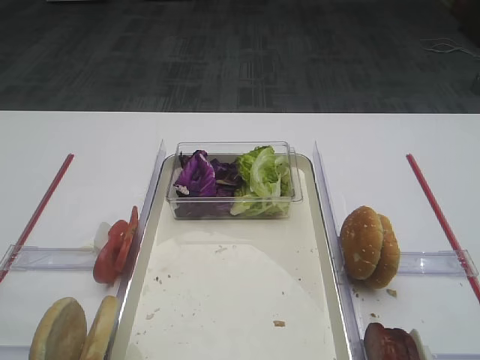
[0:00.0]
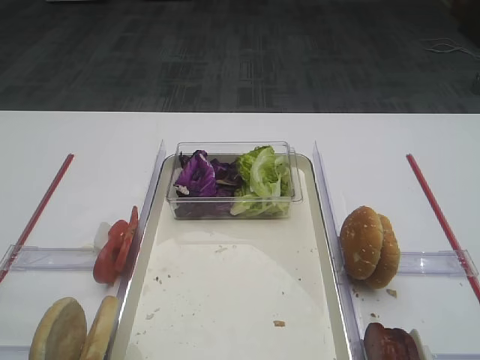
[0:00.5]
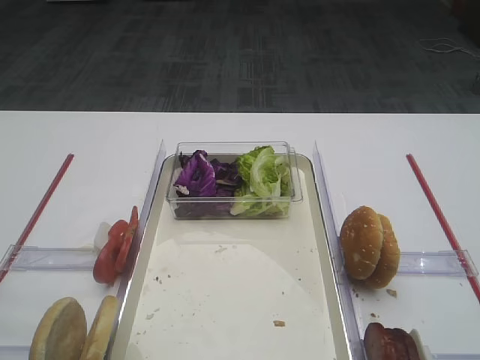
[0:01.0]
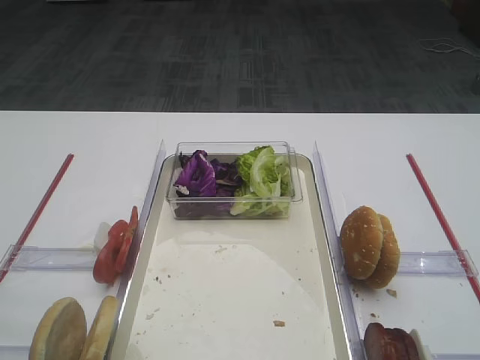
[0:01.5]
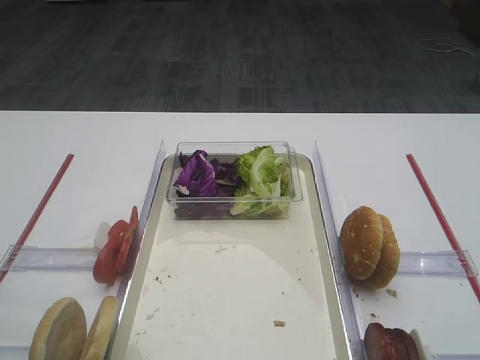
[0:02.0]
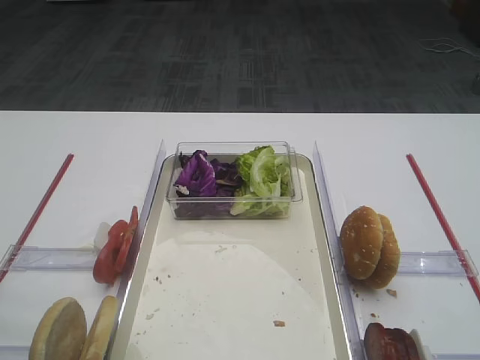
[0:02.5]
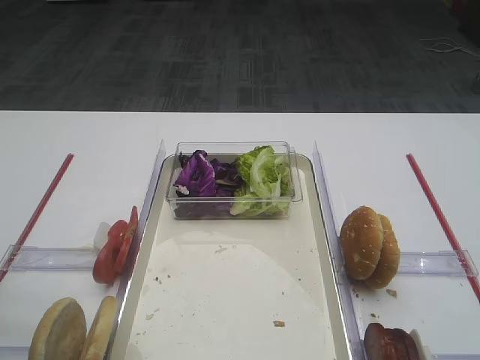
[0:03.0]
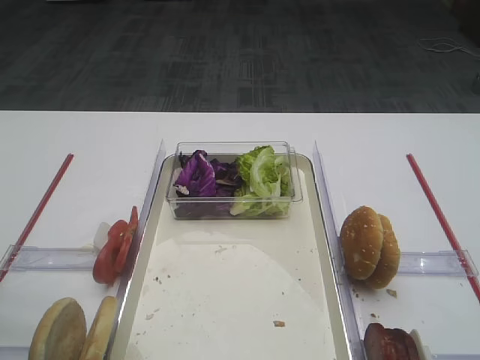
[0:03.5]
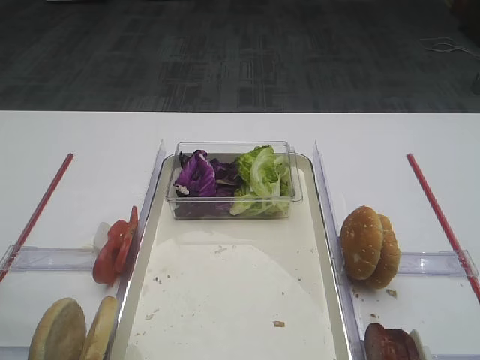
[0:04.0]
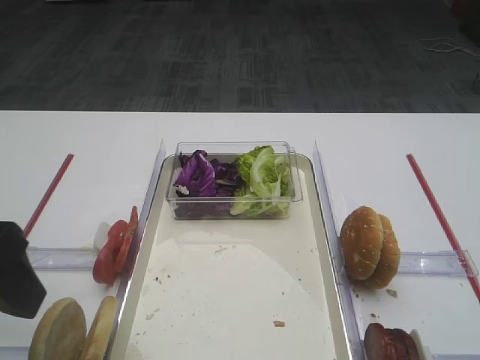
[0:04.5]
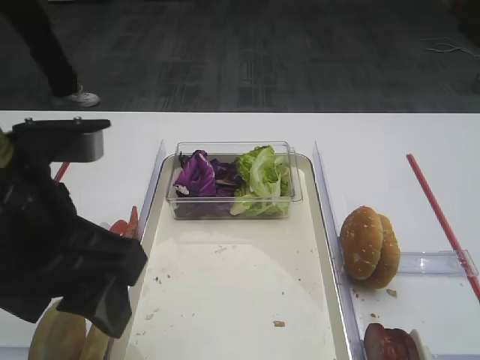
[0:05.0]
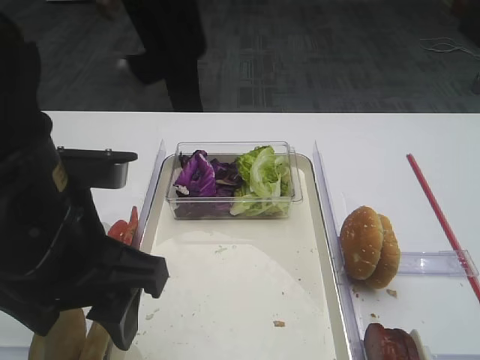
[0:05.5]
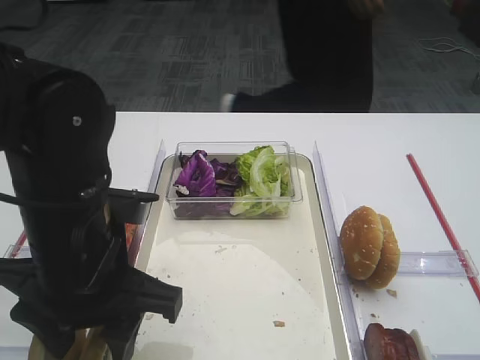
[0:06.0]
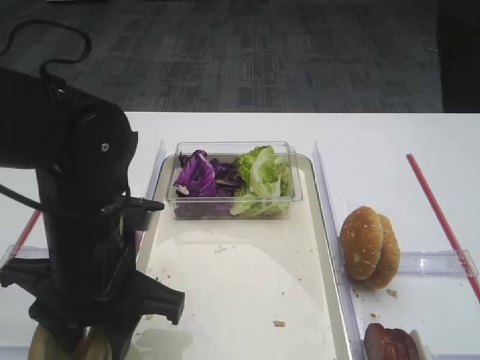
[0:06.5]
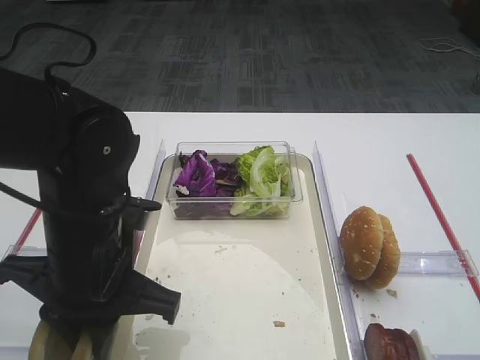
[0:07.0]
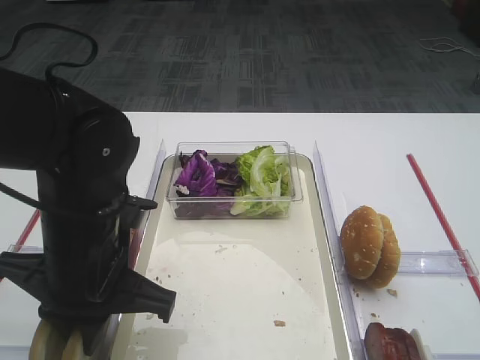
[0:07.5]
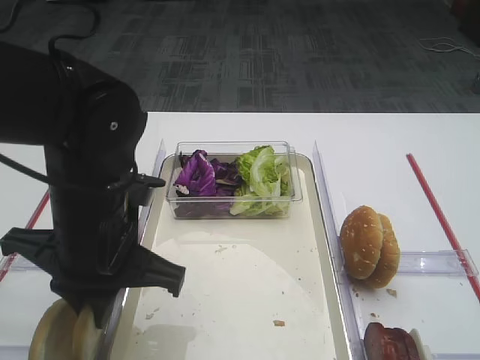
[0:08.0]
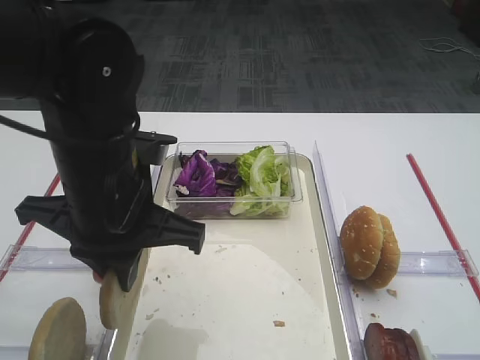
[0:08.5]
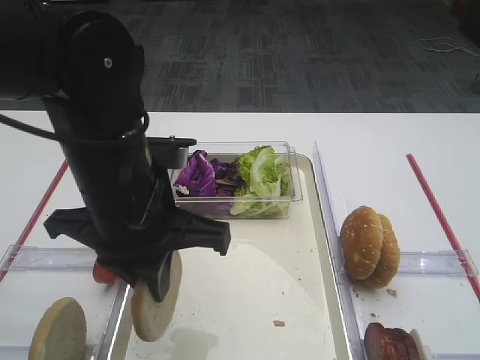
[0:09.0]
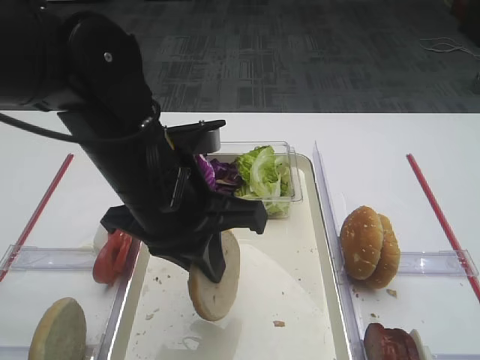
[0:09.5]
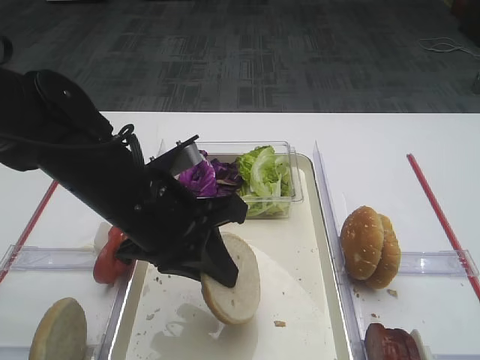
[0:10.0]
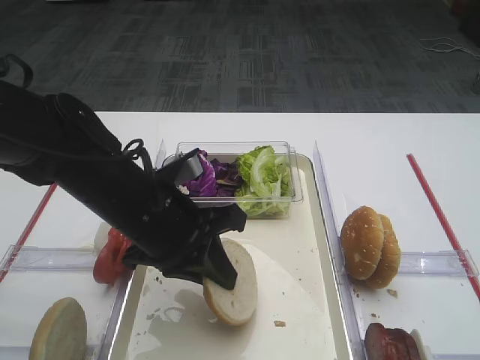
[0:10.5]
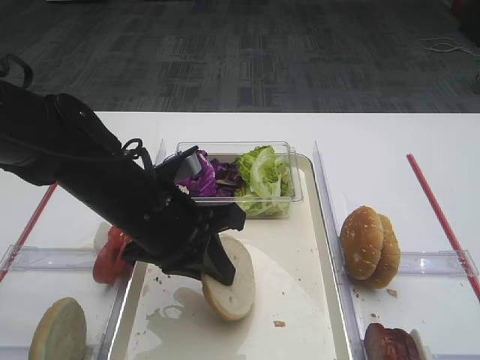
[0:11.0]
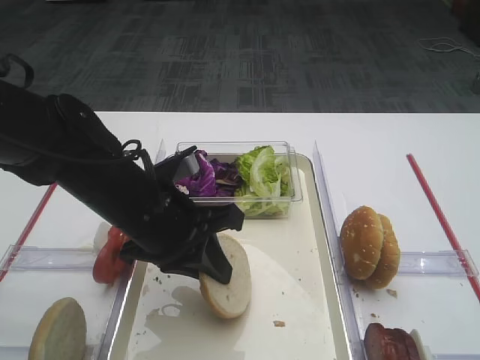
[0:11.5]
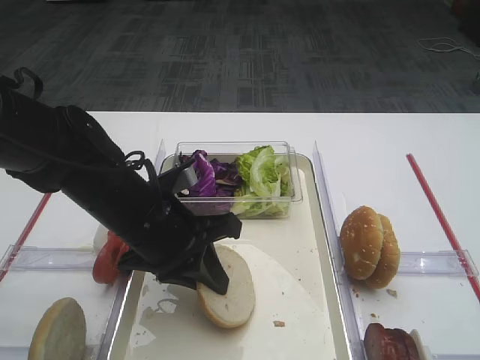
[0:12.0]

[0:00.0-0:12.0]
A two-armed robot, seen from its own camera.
Step, 0:00.0 to 0:08.0: Pick up the bread slice with the left gripper.
0:04.0 to 0:06.0: The left gripper travels to the right and downward by about 15 cm.
0:06.0 to 0:08.0: The left gripper closes its fingers.
0:10.0 to 0:12.0: There are only small adjustments of the grippers.

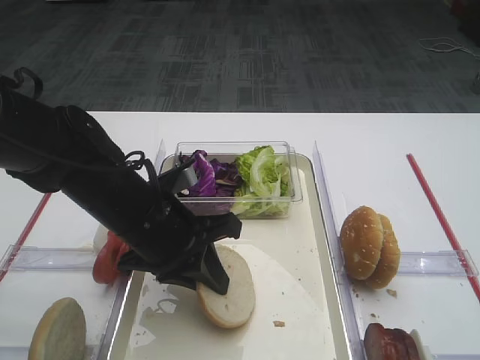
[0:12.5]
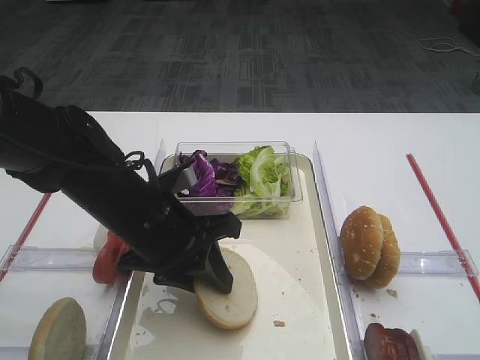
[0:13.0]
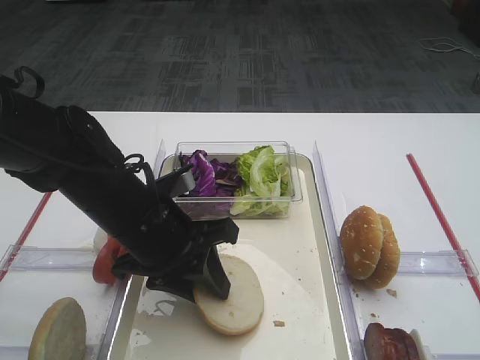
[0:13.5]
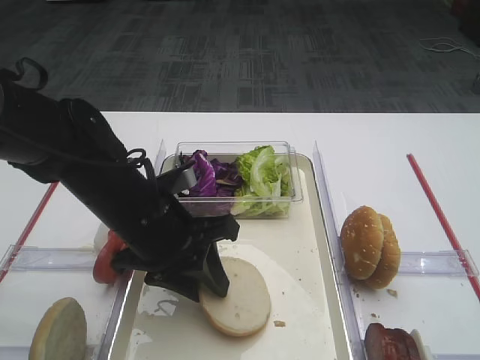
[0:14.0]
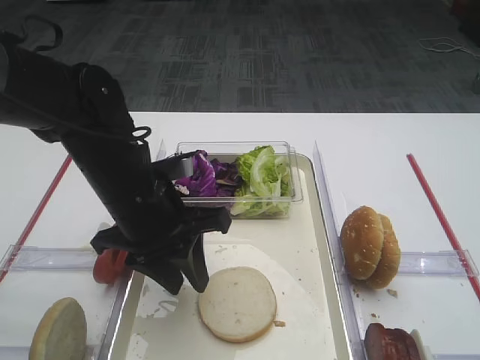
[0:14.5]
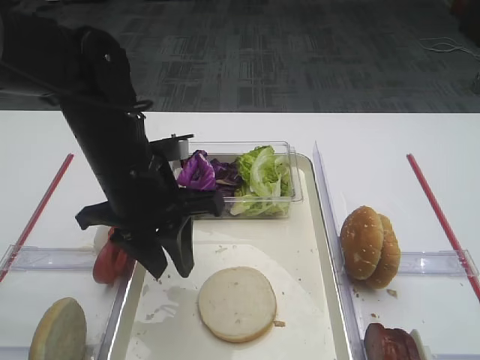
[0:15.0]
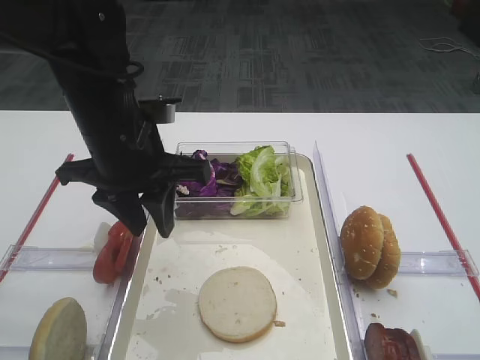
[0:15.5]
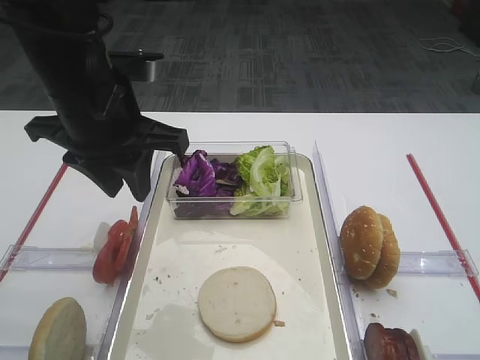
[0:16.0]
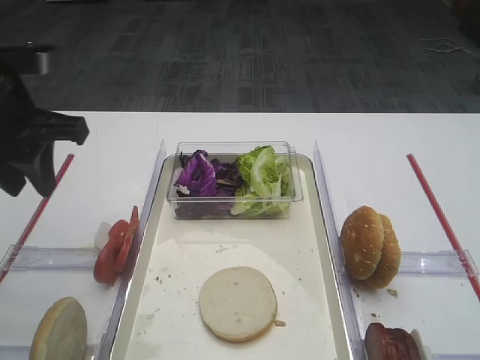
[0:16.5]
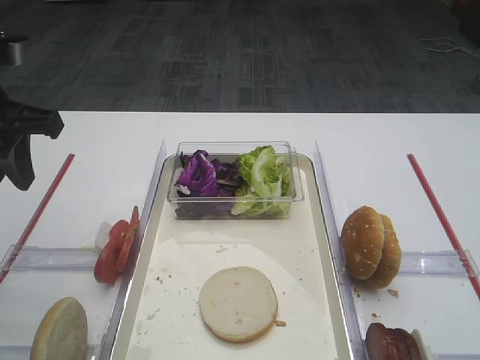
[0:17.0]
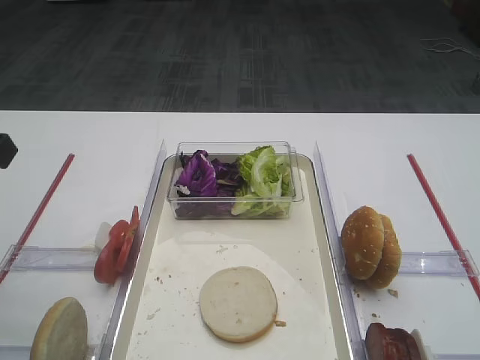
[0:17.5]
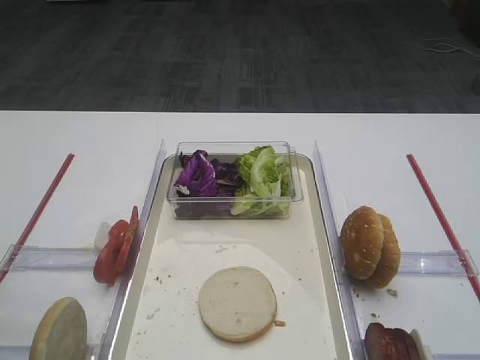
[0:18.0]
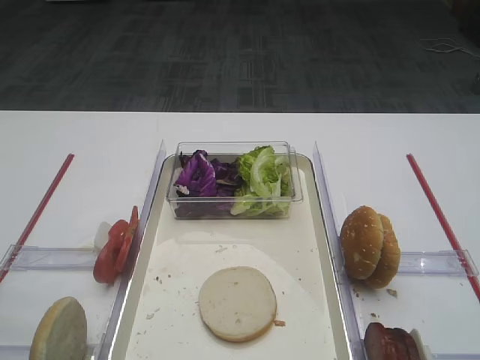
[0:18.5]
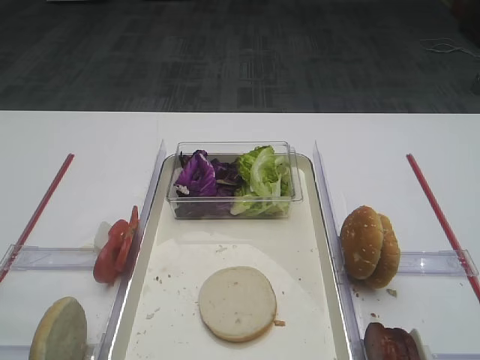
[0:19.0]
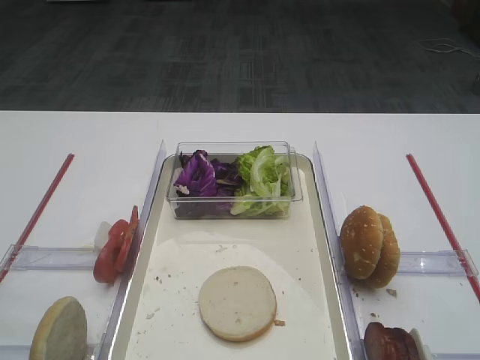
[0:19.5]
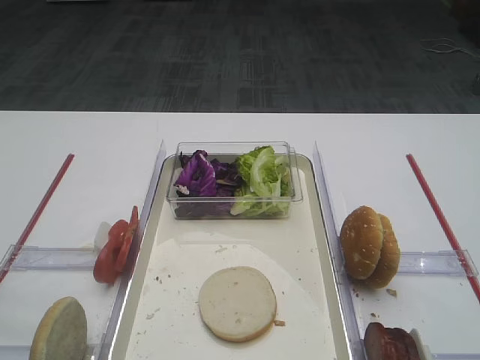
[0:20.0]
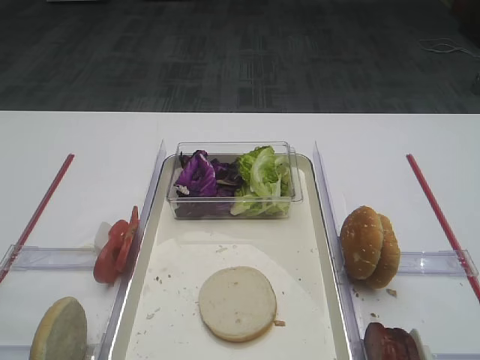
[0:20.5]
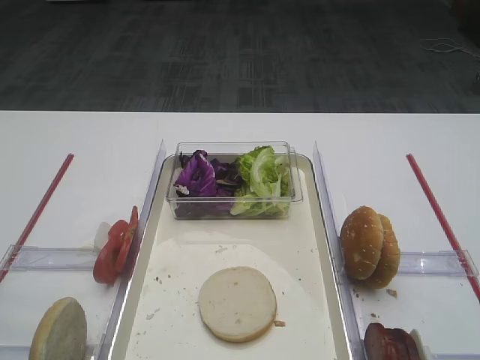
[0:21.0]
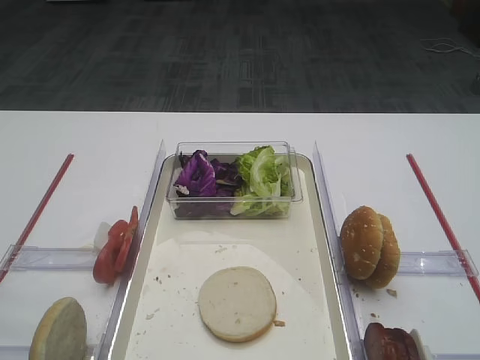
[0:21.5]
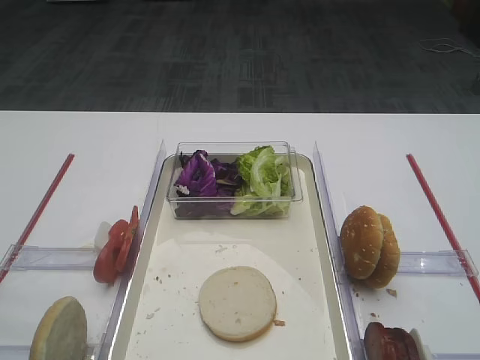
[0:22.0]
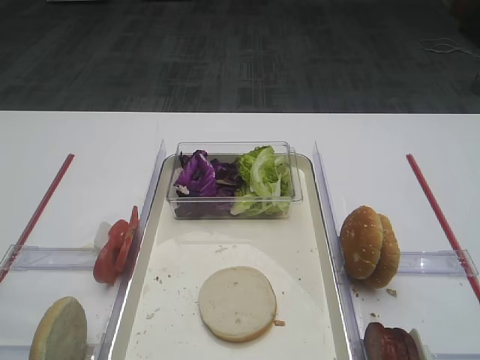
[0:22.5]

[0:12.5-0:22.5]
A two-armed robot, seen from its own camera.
Step, 0:12.5 to 0:15.0: Place the bread slice on the tray with the left gripper.
0:12.5 to 0:14.5: The grippers move only a little.
0:14.5 to 0:16.5: The left gripper shifts about 15 cm to the left and upward.
0:16.5 to 0:18.5: The left gripper moves backward, roughly 20 cm.
0:20.5 to 0:22.5: Neither gripper changes place.

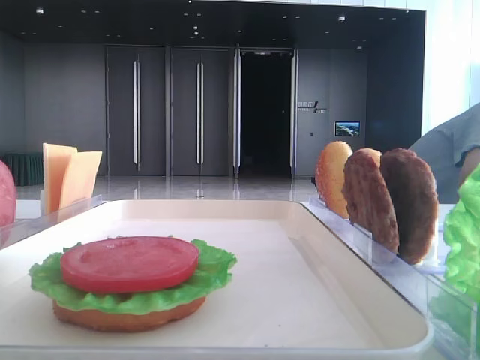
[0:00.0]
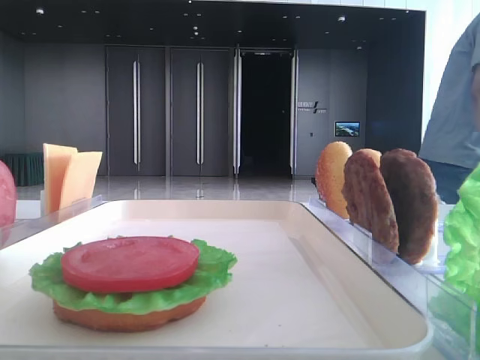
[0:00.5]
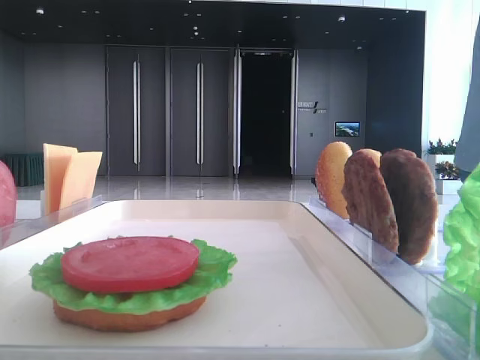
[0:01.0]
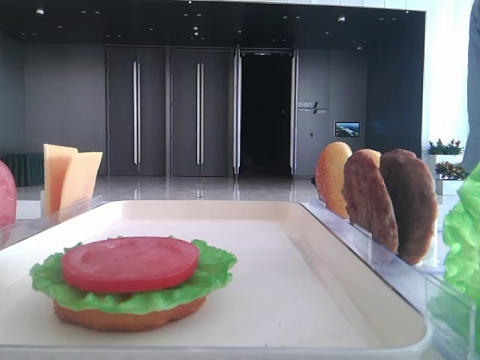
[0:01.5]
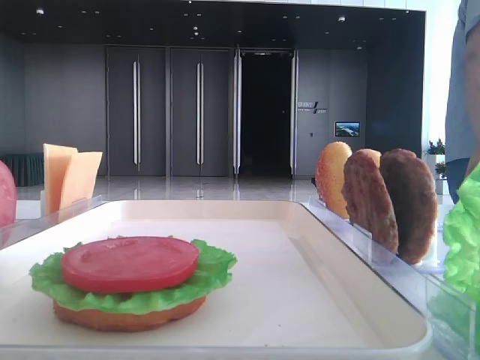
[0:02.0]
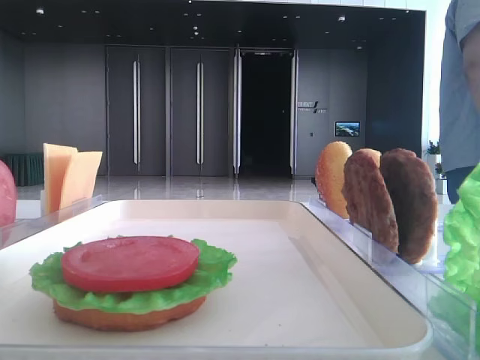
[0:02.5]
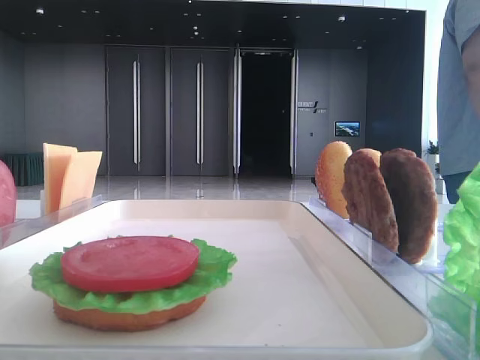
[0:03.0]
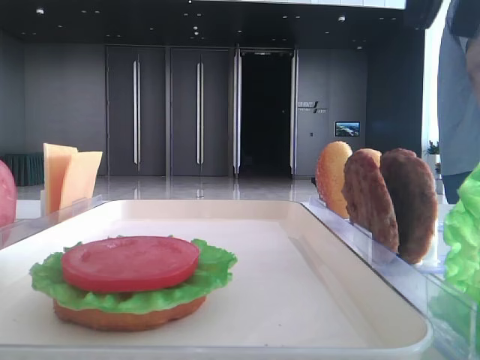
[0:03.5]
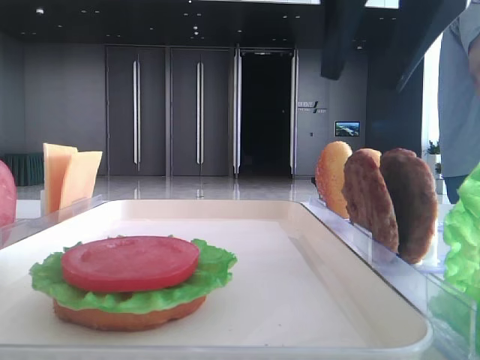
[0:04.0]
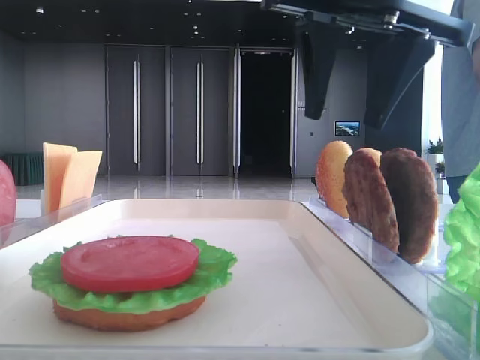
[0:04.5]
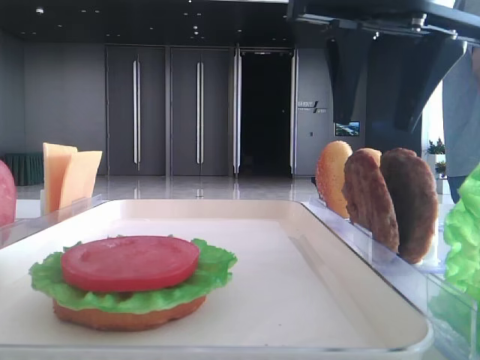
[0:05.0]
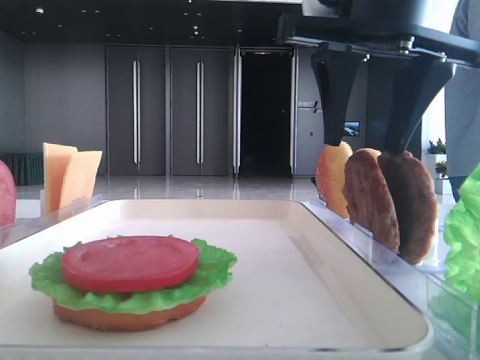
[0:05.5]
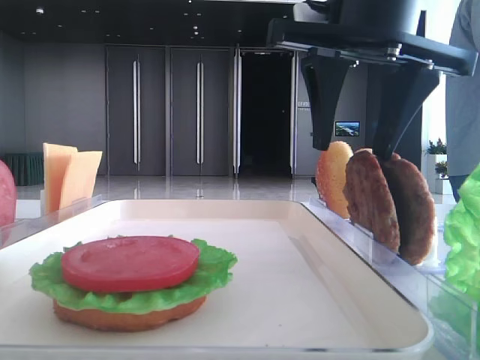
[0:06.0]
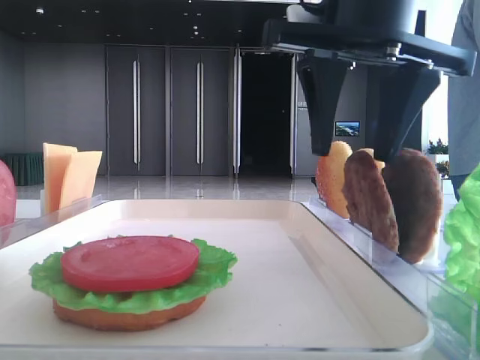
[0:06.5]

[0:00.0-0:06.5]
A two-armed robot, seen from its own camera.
0:02.0 to 0:04.5: The right gripper goes some 30 cm forward and to the left.
0:04.5 to 0:06.5: The grippers move only a little.
